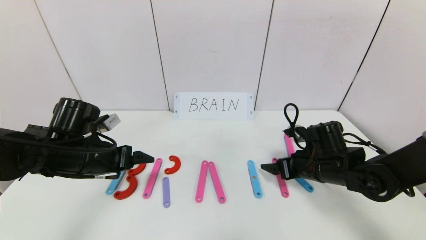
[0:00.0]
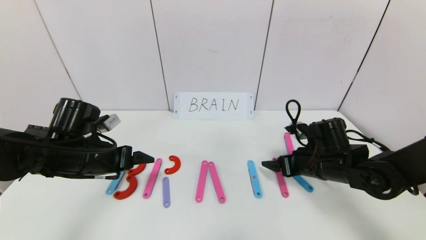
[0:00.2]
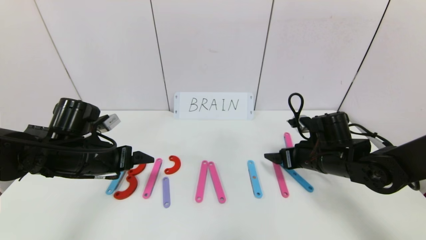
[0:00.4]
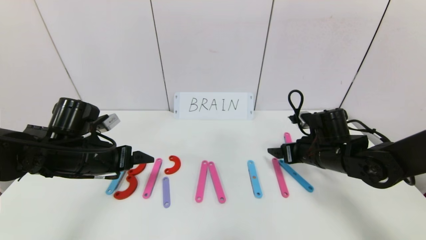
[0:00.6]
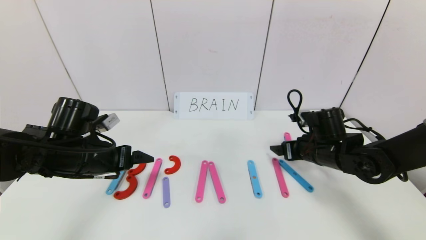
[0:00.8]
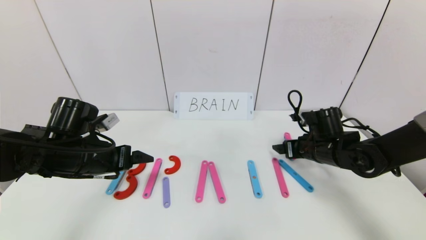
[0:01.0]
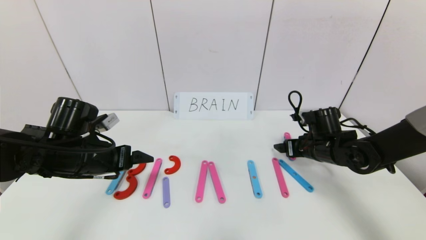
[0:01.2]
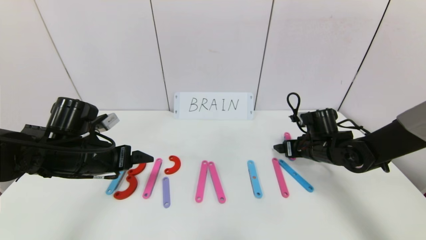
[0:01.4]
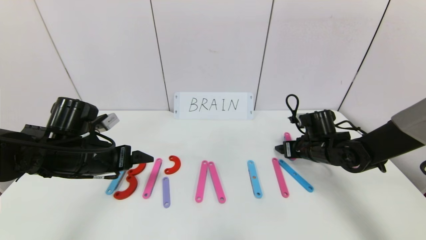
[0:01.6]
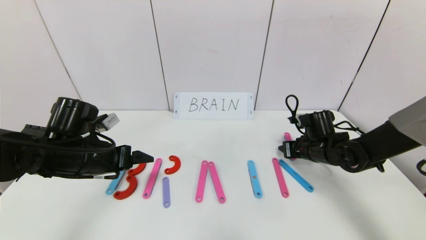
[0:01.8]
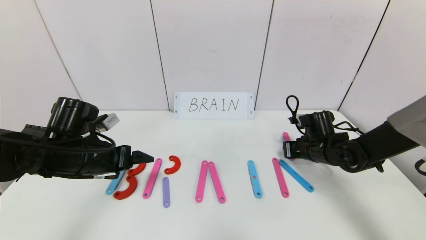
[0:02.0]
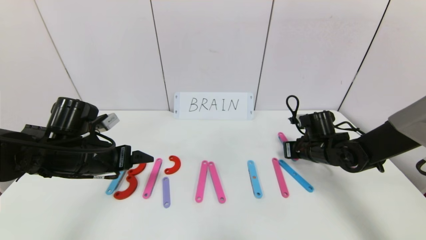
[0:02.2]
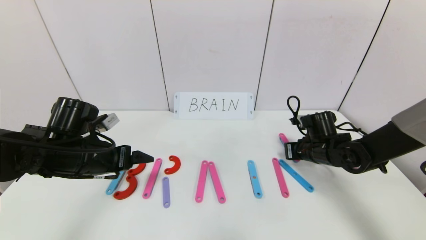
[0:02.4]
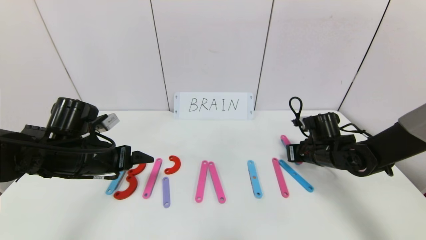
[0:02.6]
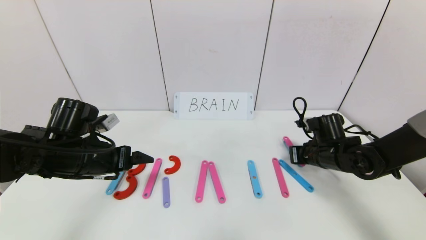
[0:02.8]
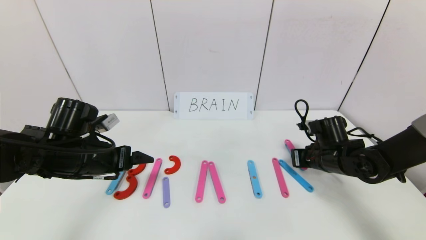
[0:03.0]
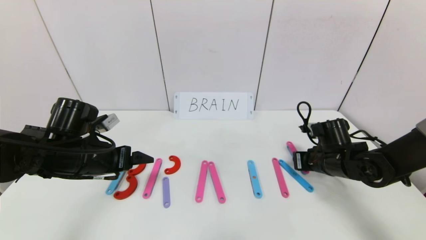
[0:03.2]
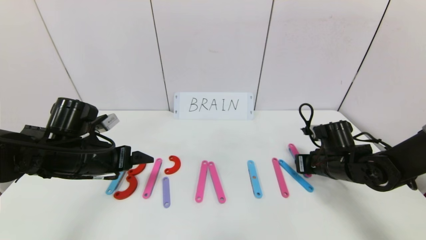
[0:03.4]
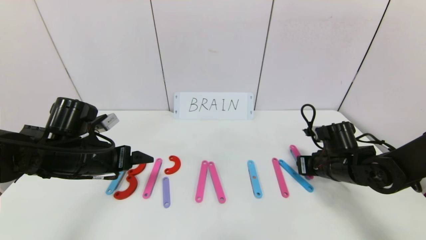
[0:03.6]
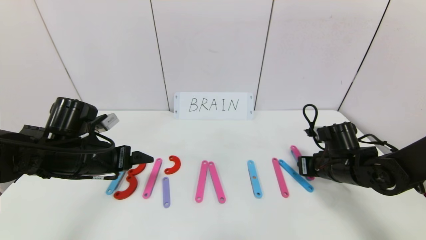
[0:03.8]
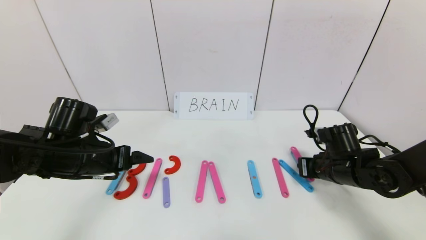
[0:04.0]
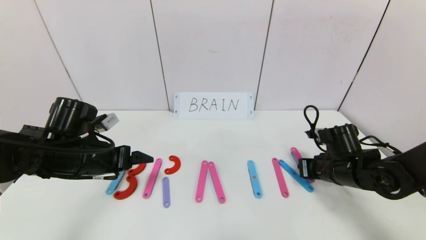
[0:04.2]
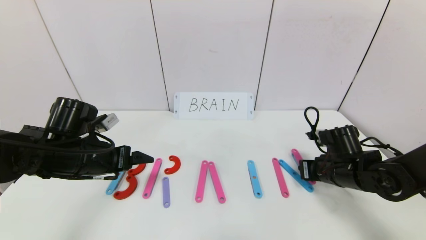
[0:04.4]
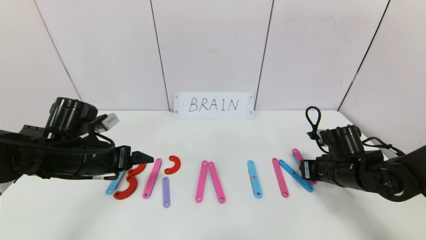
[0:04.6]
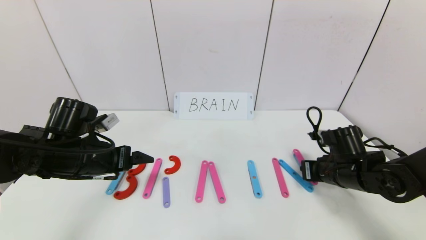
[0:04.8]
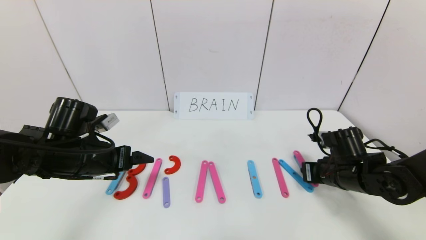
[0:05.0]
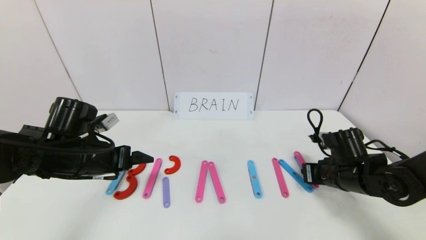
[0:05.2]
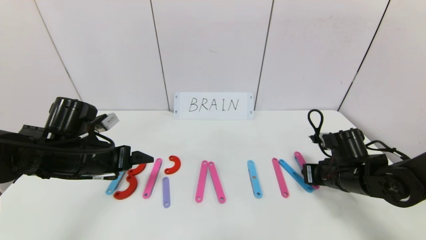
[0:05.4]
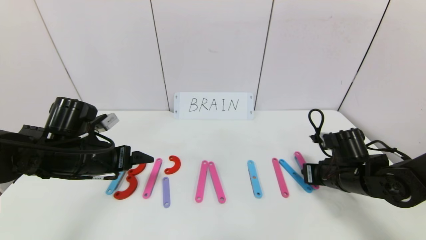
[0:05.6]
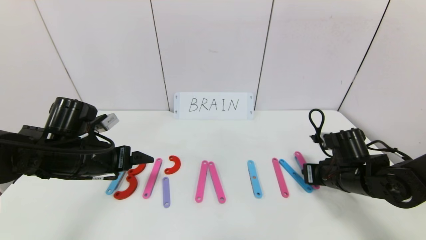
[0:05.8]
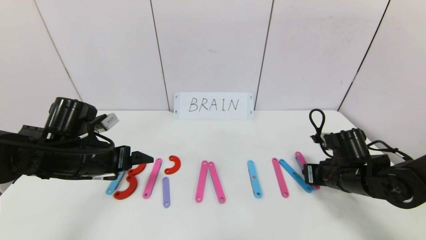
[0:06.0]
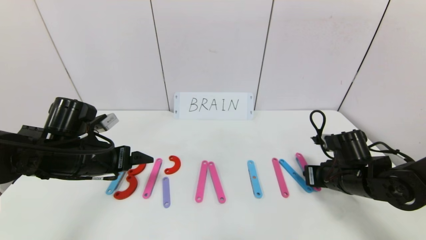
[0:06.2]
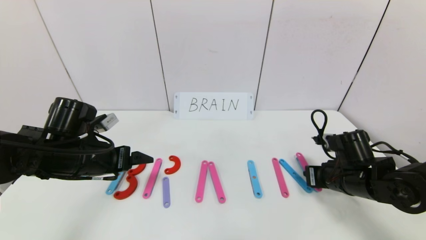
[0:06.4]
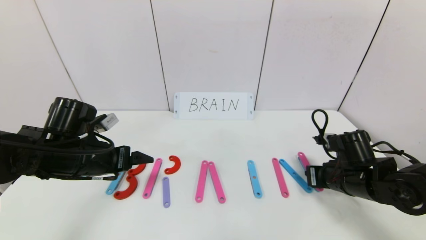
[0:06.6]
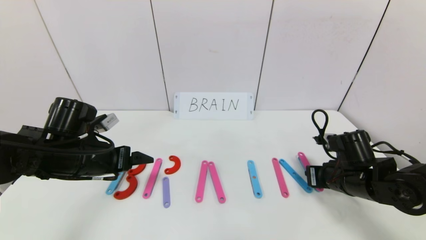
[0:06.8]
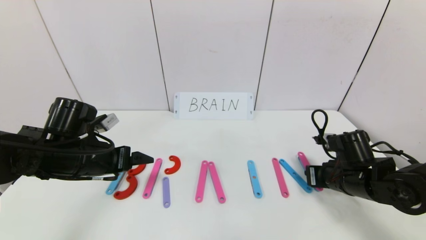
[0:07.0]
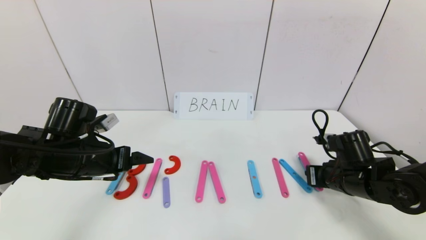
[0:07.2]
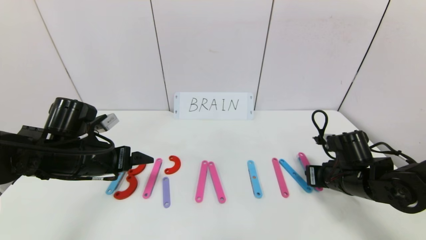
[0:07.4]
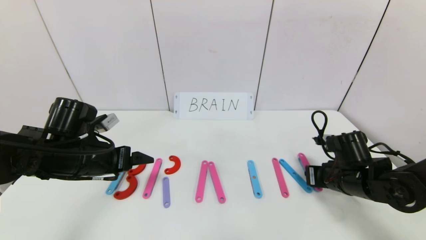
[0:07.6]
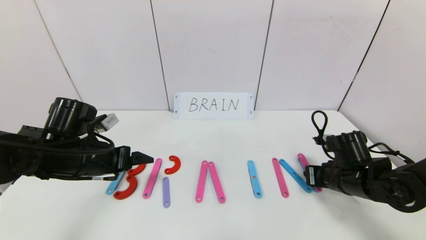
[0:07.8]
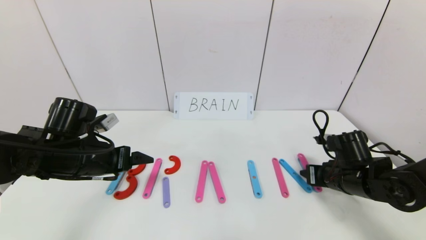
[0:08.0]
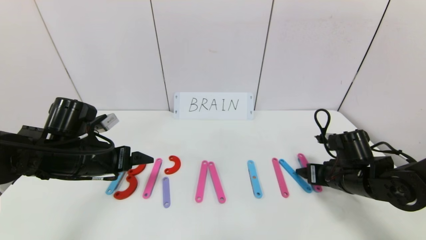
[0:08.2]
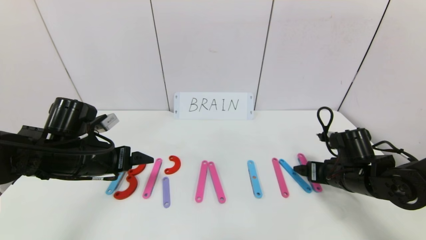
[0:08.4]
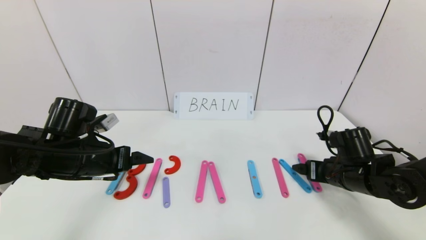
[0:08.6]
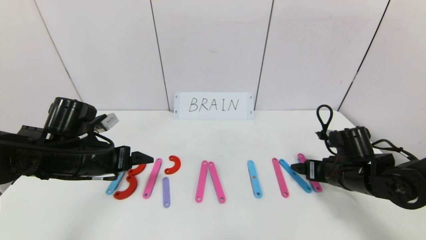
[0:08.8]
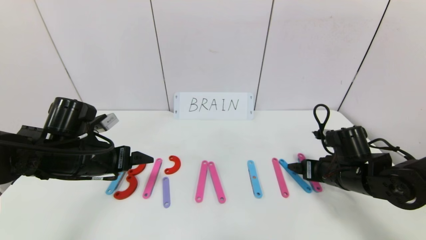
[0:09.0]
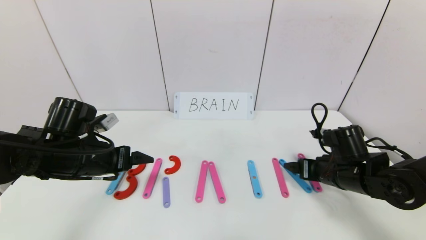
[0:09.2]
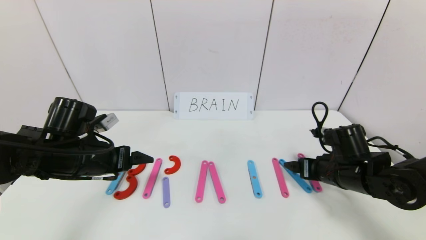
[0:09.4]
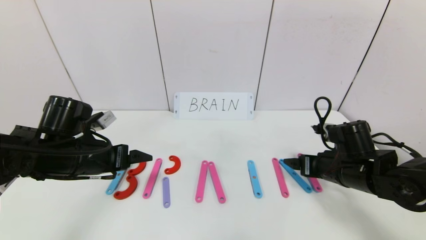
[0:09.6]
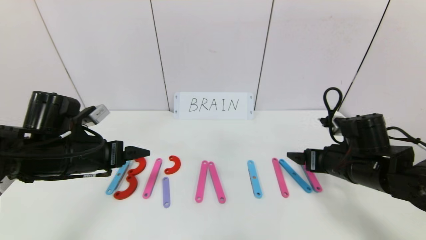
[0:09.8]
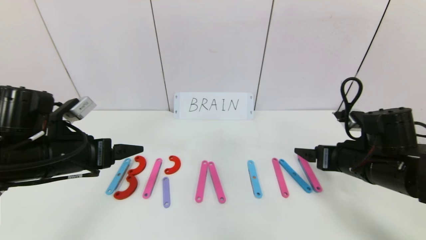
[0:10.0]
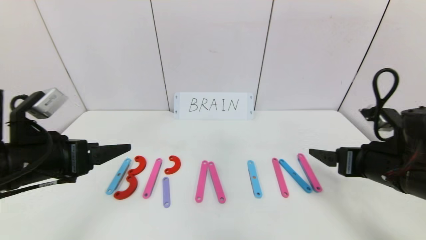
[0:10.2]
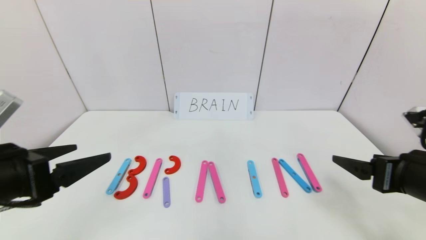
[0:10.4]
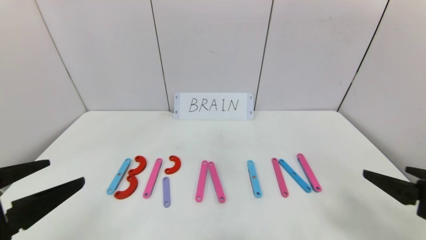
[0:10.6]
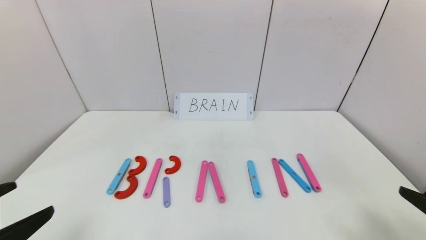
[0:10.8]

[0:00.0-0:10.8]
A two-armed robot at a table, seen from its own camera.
Task of the whole recording: rearrange the word baai as brain.
Step, 0:00.0 to 0:09.8: Place the character N after character I.
0:00.0 to 0:01.6: The right gripper goes some 5 cm forward.
0:01.6 to 0:03.0: The right gripper closes its fingers.
0:03.0 to 0:06.2: The grippers make only small movements.
0:06.2 to 0:07.8: The two grippers keep their place.
0:07.8 to 0:09.2: The right gripper opens up.
0:09.2 to 0:10.8: The left gripper goes some 25 cm backward. Meanwhile the right gripper travels backward and upward by some 25 cm.

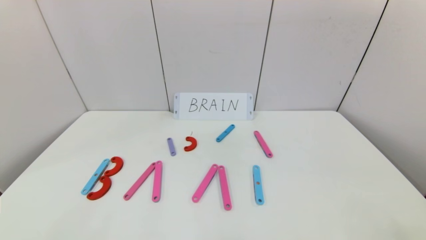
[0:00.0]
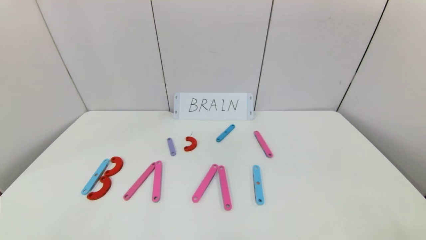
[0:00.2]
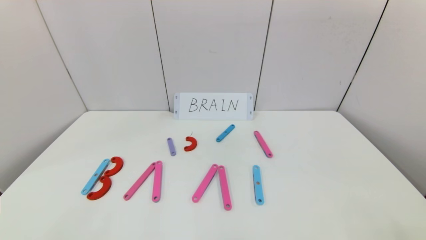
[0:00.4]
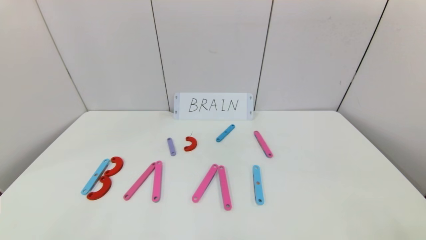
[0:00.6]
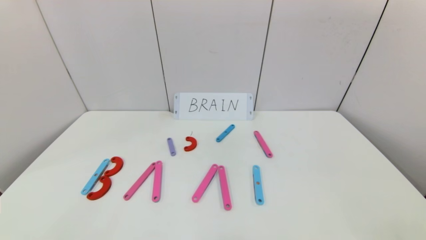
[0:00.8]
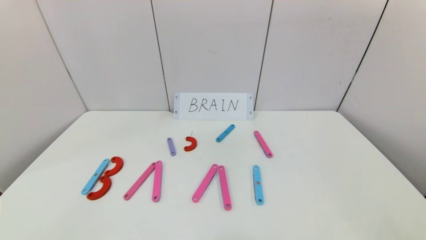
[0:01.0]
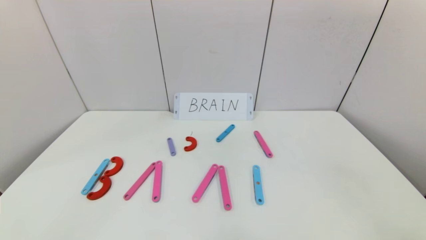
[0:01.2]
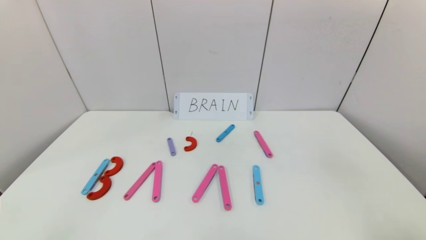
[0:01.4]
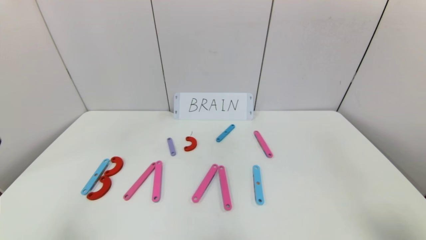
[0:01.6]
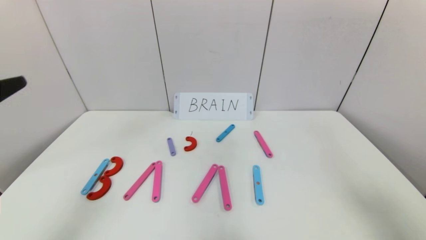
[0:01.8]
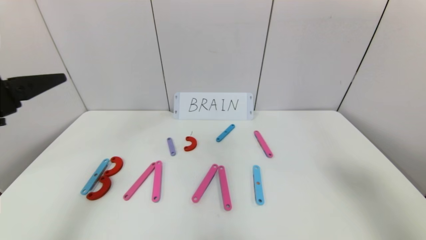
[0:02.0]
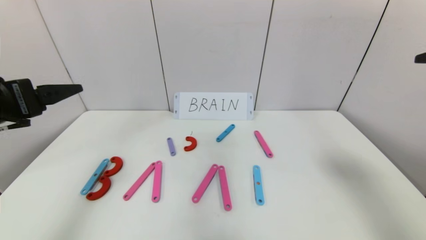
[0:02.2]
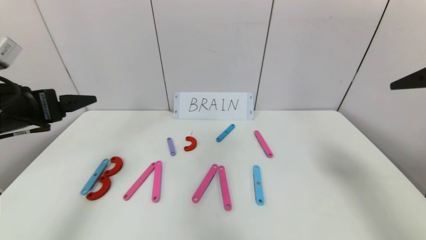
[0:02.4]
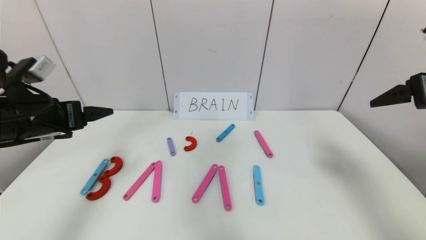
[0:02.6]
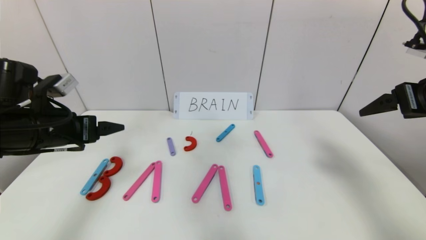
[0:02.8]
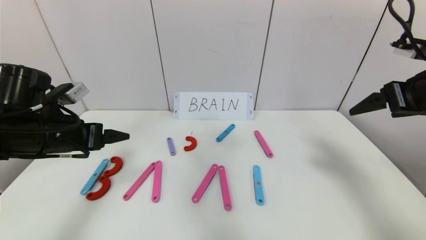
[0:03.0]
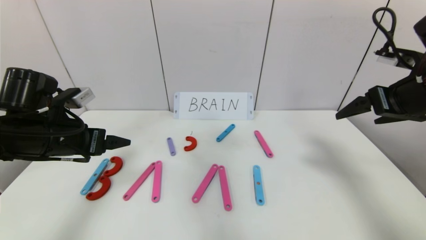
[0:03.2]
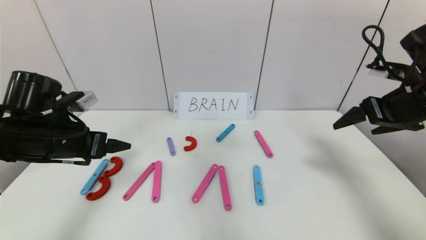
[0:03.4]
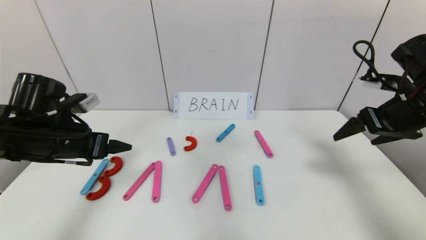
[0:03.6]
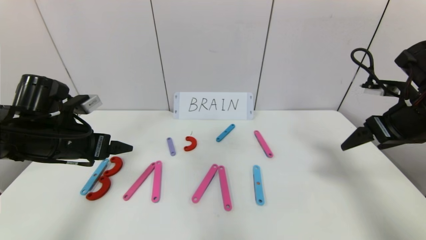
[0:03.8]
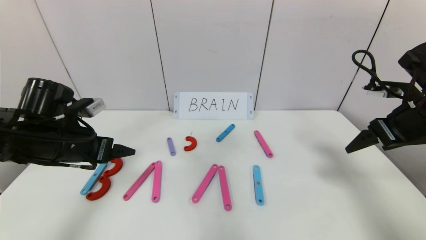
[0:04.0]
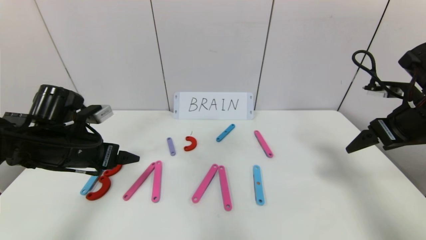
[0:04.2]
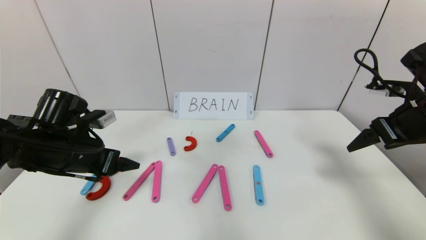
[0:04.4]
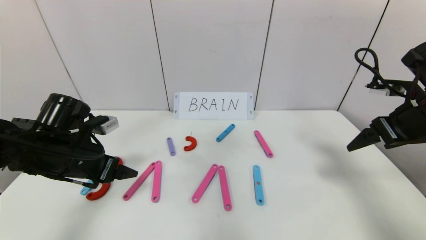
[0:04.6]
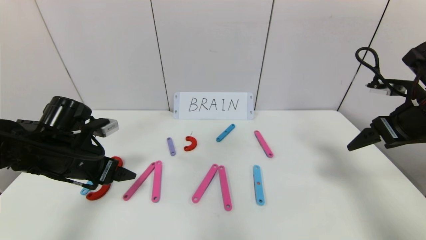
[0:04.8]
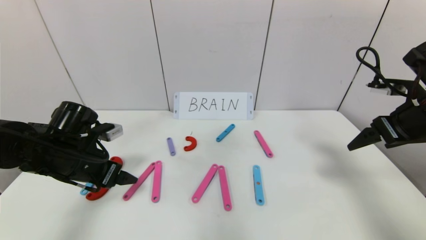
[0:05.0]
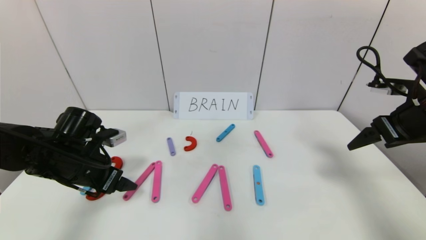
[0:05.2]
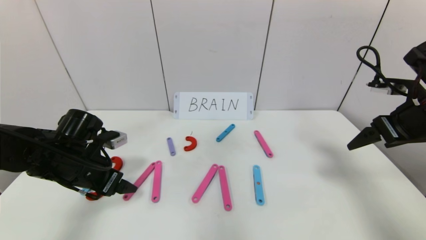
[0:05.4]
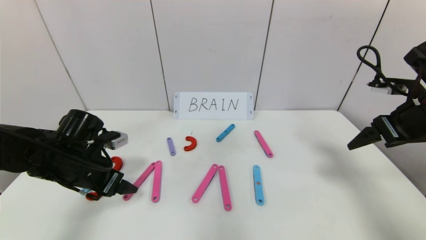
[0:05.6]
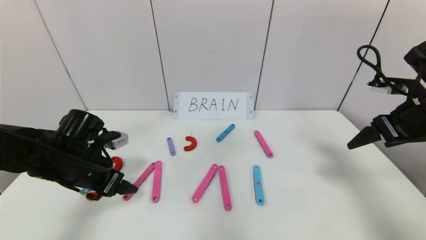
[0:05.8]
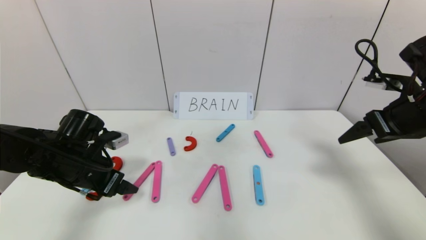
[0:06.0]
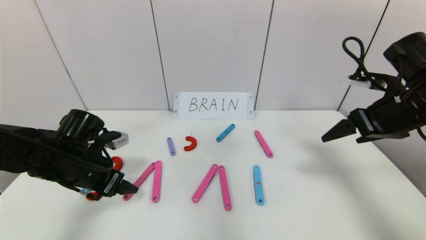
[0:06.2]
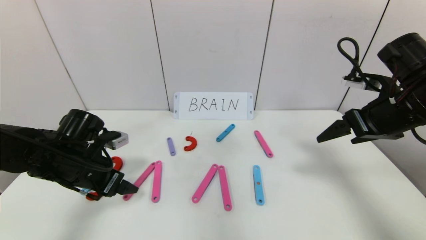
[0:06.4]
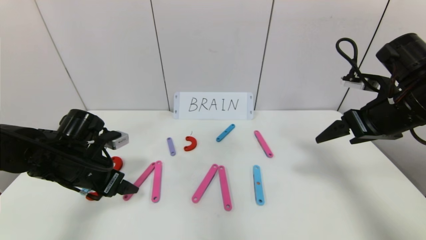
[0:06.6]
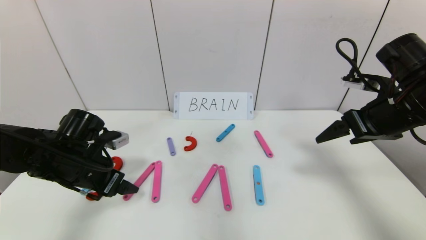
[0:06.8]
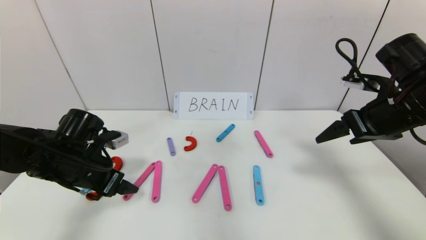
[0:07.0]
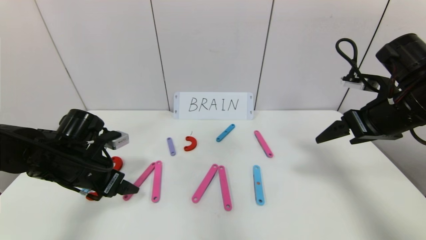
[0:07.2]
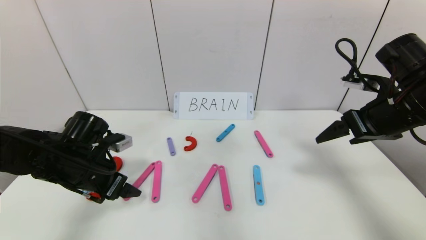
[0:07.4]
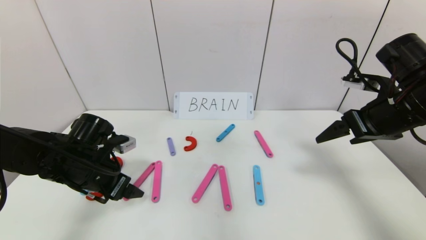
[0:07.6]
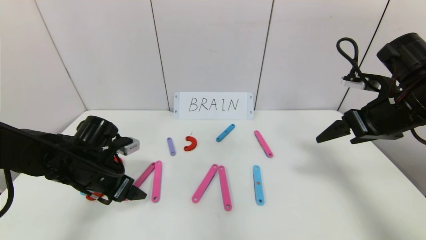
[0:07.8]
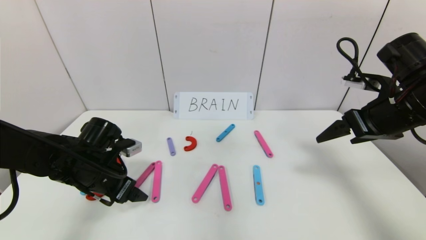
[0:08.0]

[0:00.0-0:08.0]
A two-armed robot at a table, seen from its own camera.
Task of the whole recording: rearrange the word baai as brain.
0:01.6 to 0:03.2: Both grippers move forward, some 20 cm.
0:03.2 to 0:04.8: The left gripper heads downward, covering about 5 cm.
0:04.8 to 0:08.0: There are only small adjustments of the grippers.
